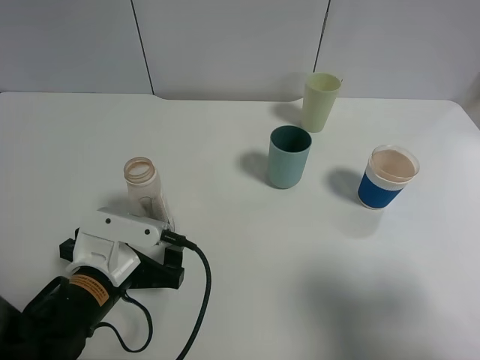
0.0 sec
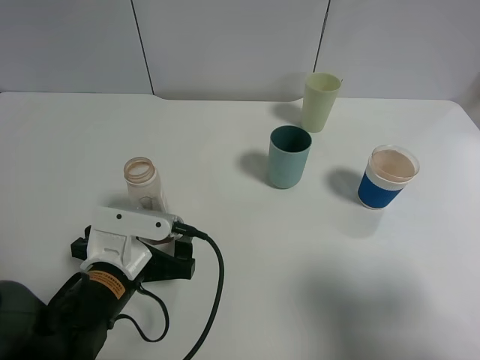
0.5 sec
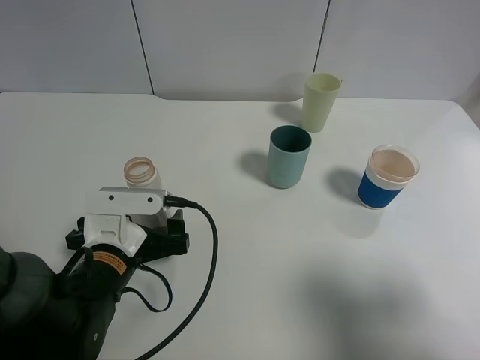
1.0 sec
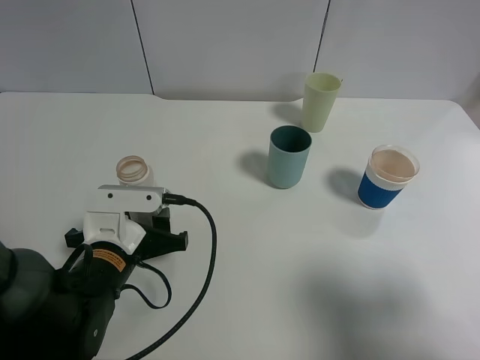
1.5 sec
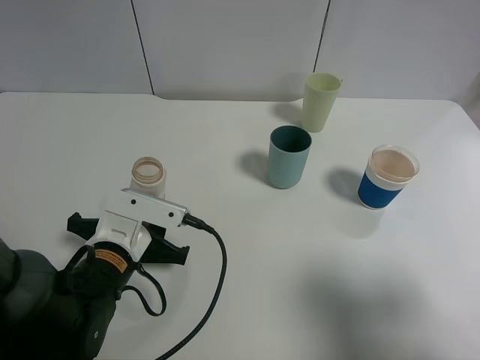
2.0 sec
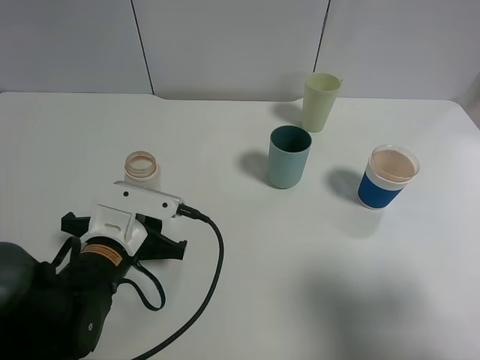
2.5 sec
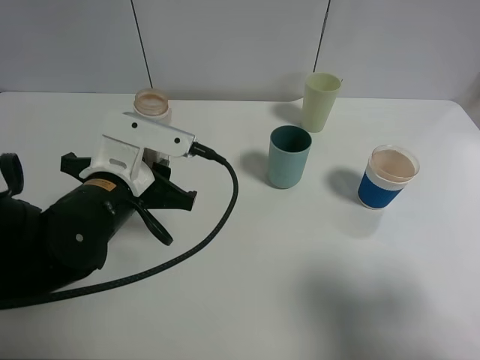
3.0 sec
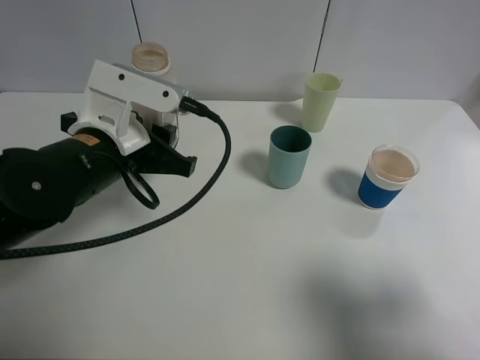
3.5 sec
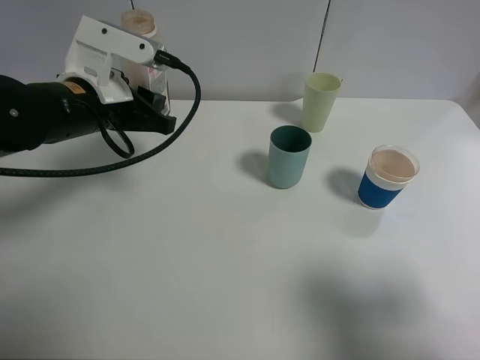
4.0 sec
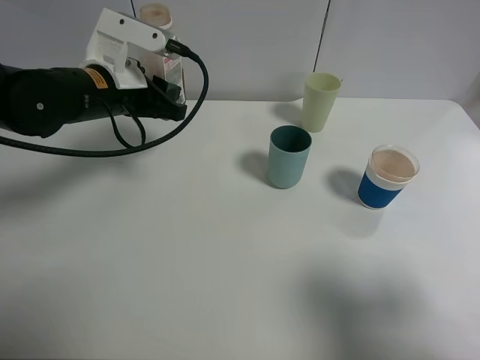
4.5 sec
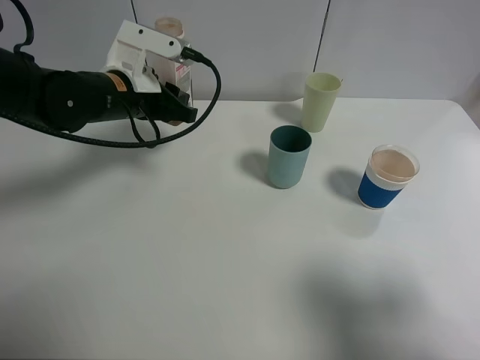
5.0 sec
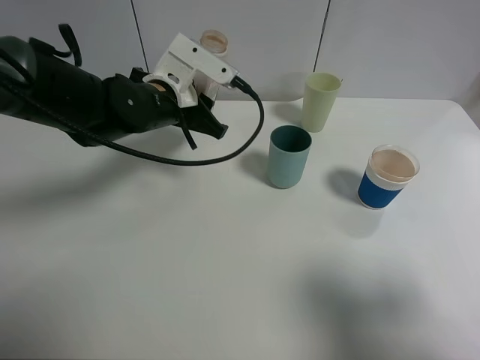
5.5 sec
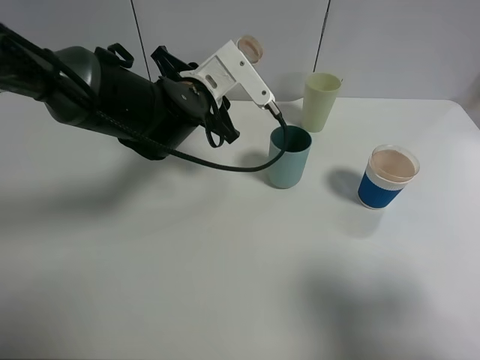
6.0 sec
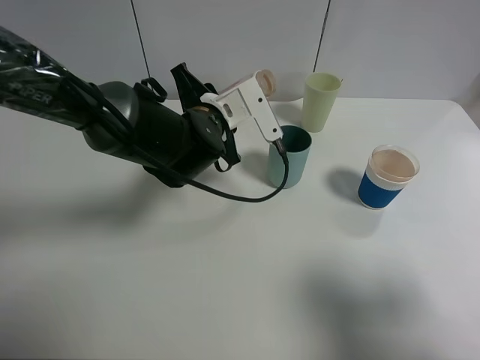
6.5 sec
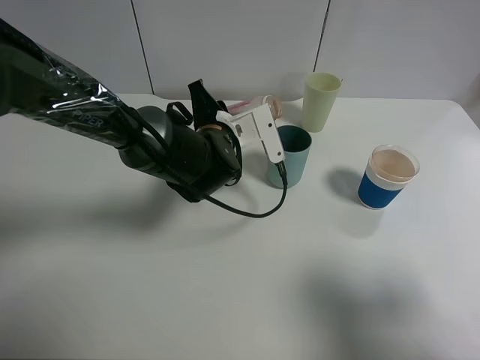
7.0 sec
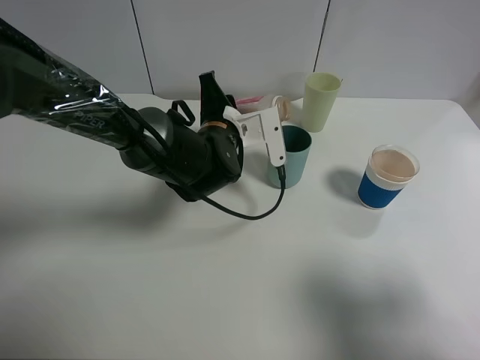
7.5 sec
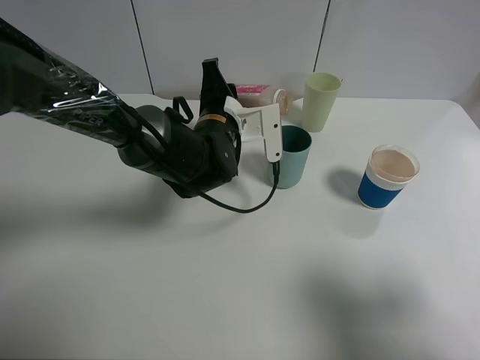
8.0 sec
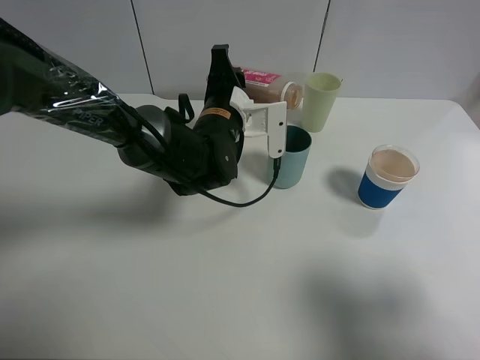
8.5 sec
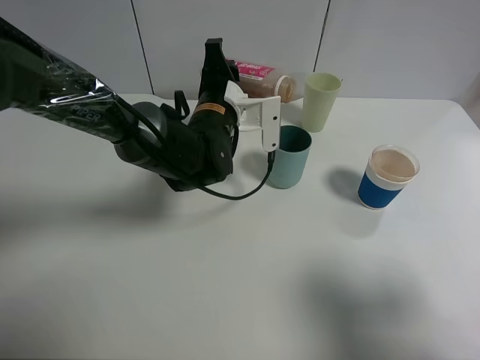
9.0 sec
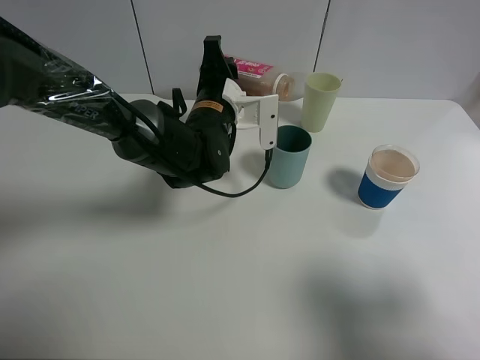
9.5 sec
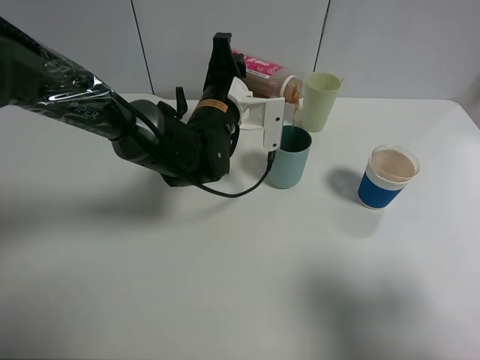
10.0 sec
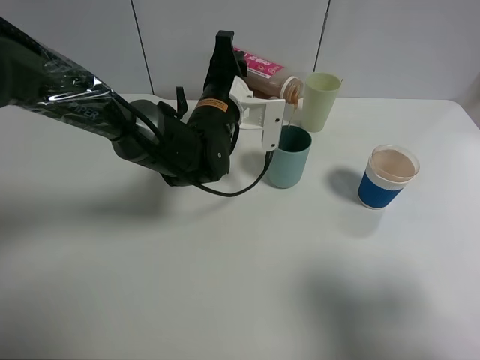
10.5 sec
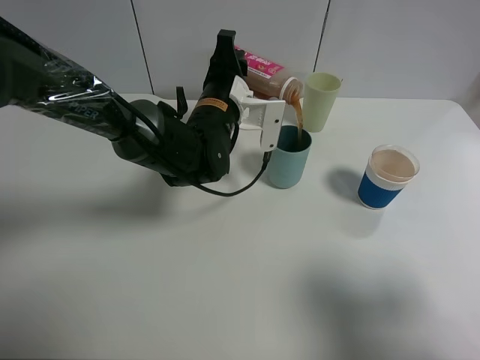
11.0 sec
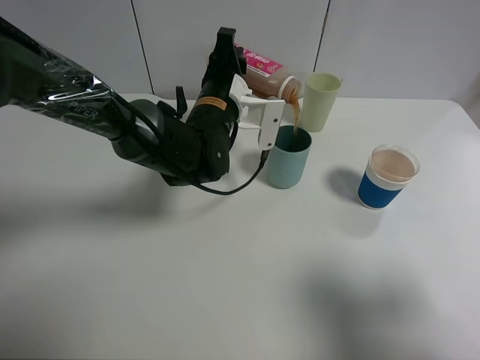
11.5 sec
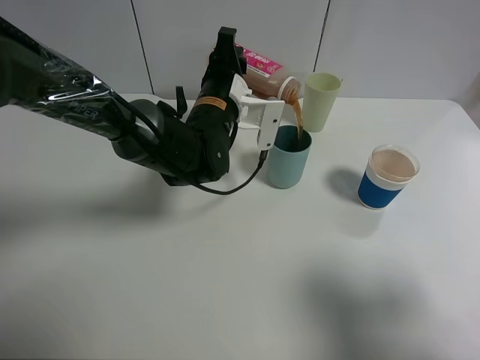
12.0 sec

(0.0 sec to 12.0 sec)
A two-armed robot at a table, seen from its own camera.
Task of the whole recording: use a clamp to hold the bottle of the drink, pour the beverage into a random cup, then clamp the cup containing the drink and pour the drink into another random cup.
Step, 0.0 sec - 2.0 sec: Pick up the drink bottle with left gripper.
0.0 sec - 2.0 sec: The left gripper closes up.
2.0 sec - 4.0 sec: The left gripper is displaced upward and forward by approximately 20 cm.
4.0 sec - 6.0 sec: The left gripper moves to the right, approximately 10 cm.
6.0 sec - 8.0 sec: The left gripper shifts by some 5 cm.
8.0 sec - 10.0 sec: The grippers make only small movements.
10.0 sec - 12.0 sec: The grippers make only small movements.

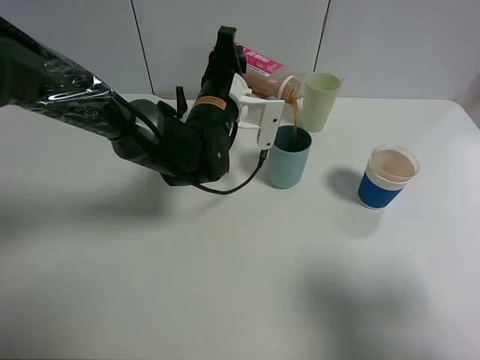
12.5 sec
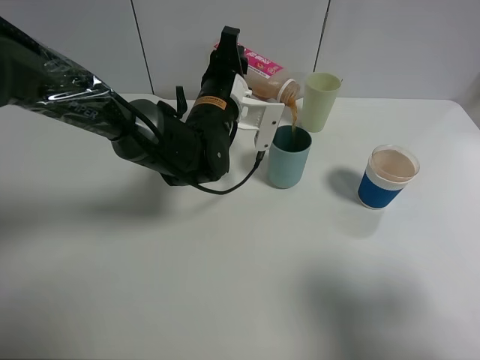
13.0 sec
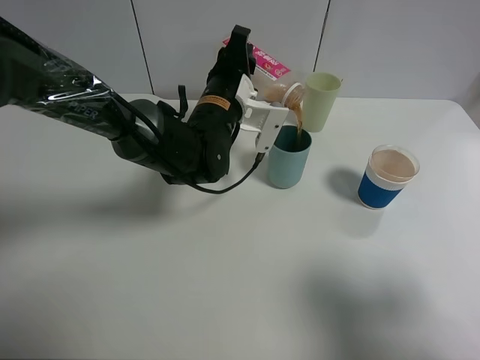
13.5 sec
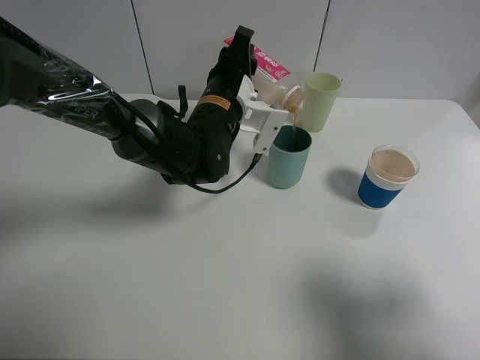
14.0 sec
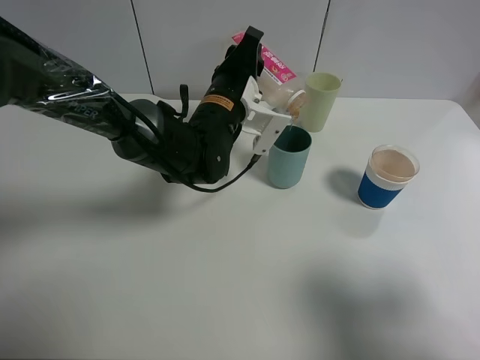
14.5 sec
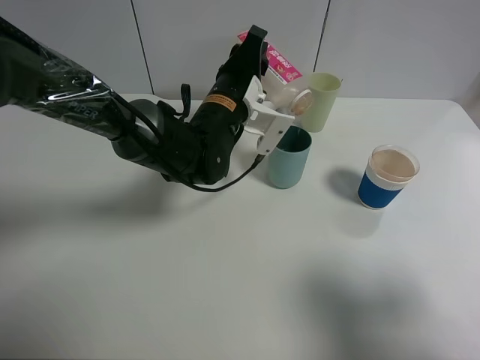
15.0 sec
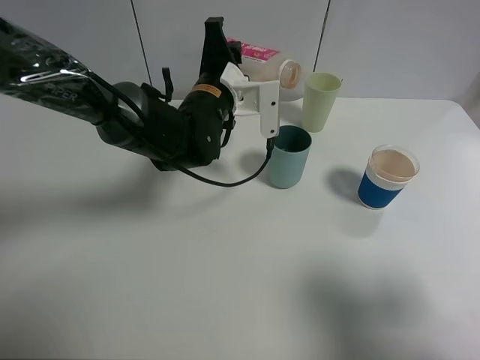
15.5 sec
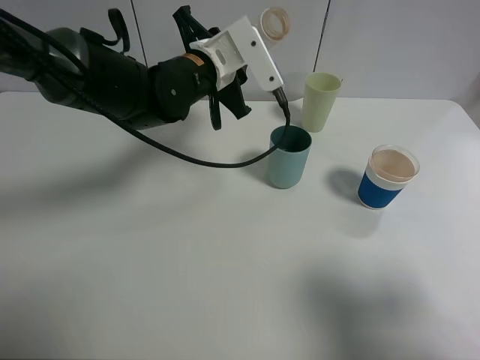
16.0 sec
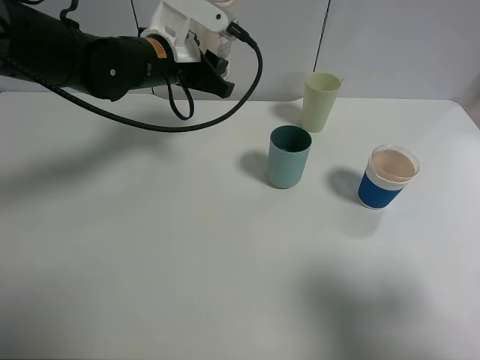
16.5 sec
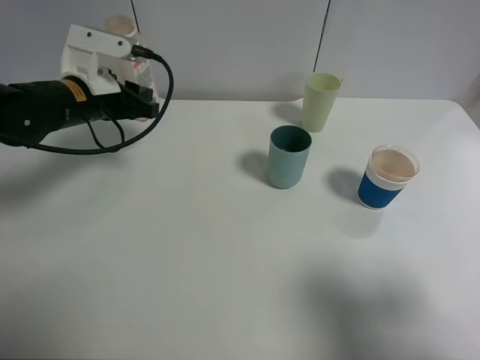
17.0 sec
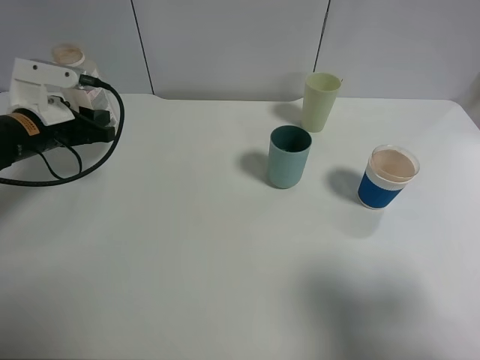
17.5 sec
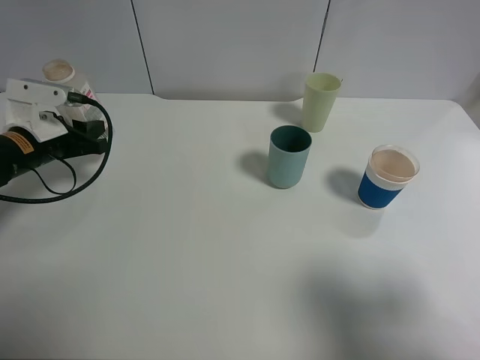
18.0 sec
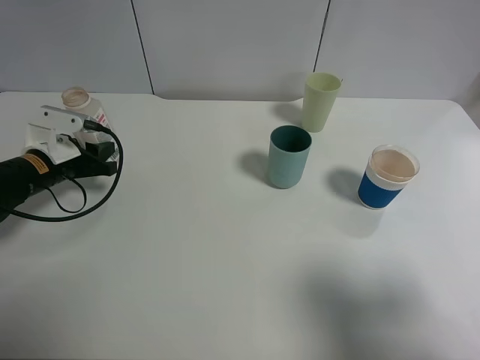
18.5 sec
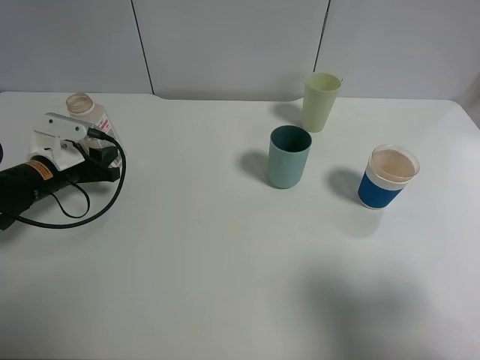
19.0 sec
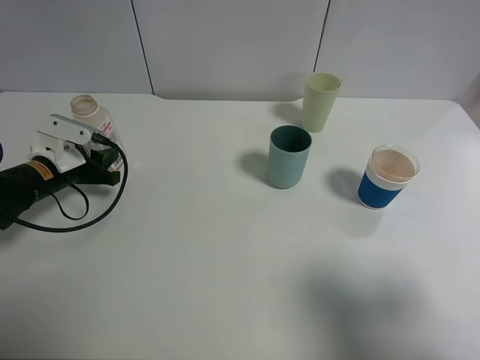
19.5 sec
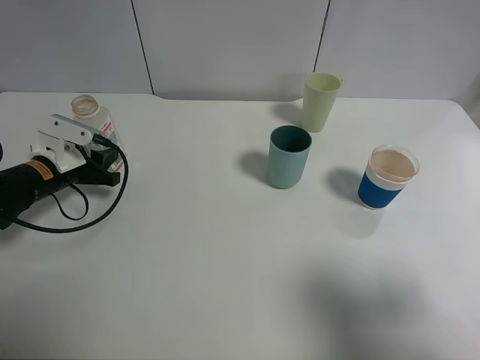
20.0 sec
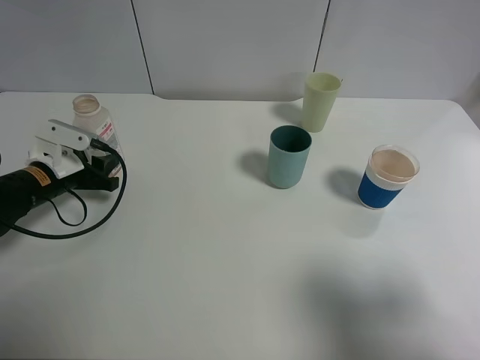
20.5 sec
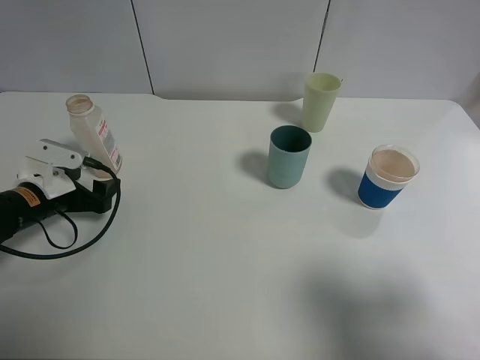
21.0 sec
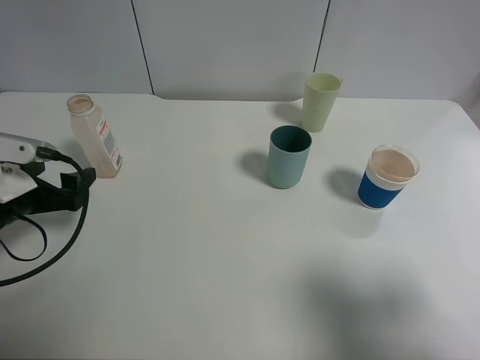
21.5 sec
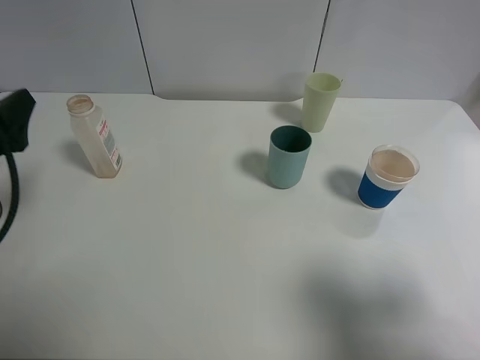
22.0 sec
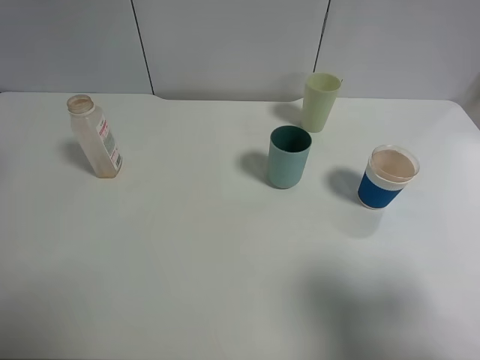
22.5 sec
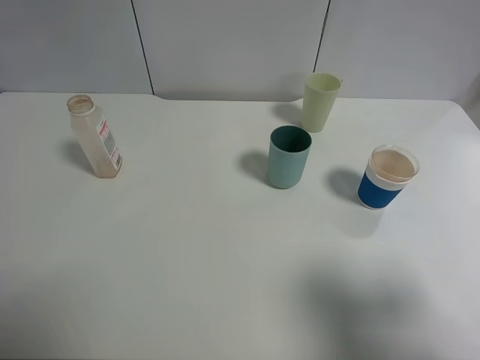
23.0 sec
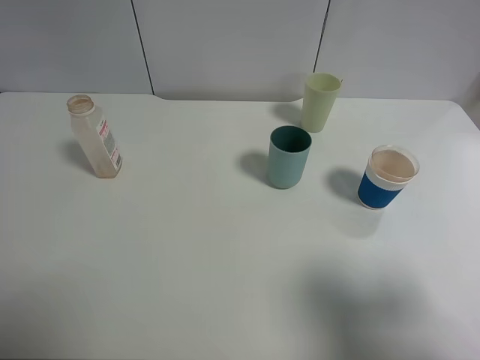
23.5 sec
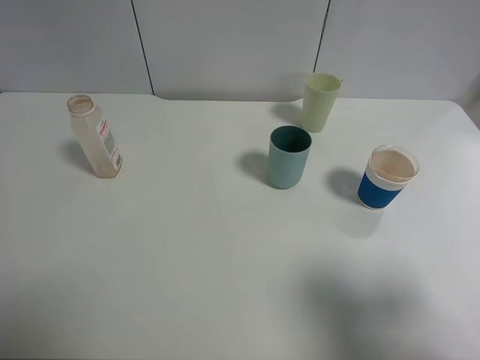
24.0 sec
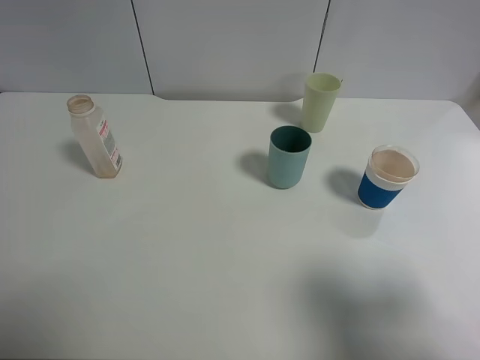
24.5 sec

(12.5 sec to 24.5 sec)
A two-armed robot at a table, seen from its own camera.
Task of the whole recording: use a clamp to hold the bottle of the drink, pour the beverage into a random cup, then clamp the cup containing the drink and pour the drink into another random cup.
Step, 12.5 sec - 15.0 sec: Pour the drink into the blue plastic cup with left gripper.
Step, 15.5 sec - 20.5 sec: Place the drink bottle on the table with left gripper.
12.5 sec - 14.5 sec: The grippers move only a little.
14.5 sec - 16.5 sec: The left gripper travels to the left and upward by about 10 cm.
16.5 sec - 18.5 sec: The left gripper moves to the left and downward, roughly 25 cm.
18.5 sec - 20.5 sec: The grippers make only small movements.
20.5 sec - 22.5 sec: The left gripper is displaced upward and backward by approximately 25 cm, and opens its fingers.

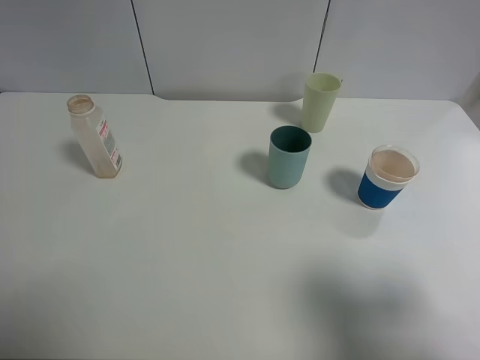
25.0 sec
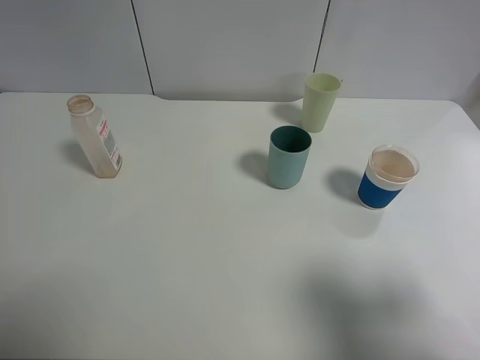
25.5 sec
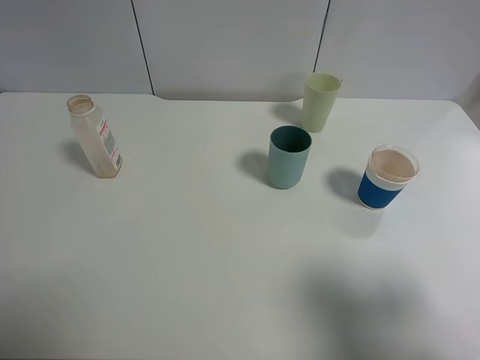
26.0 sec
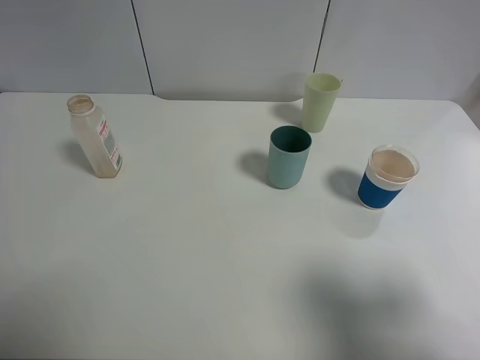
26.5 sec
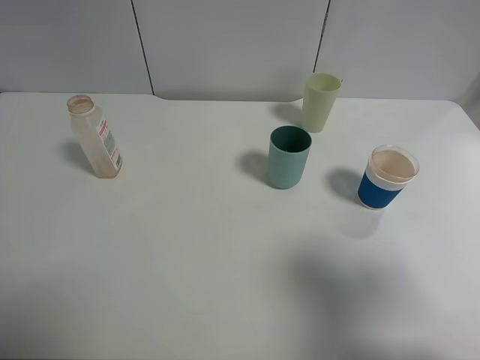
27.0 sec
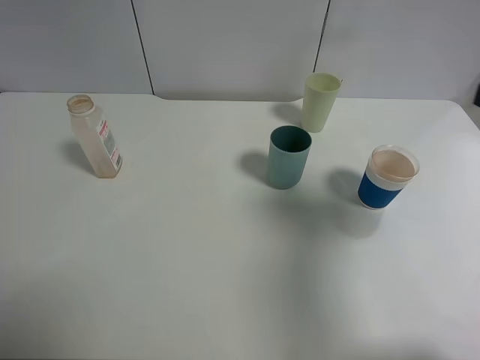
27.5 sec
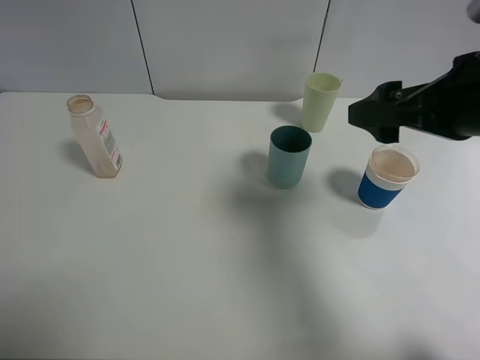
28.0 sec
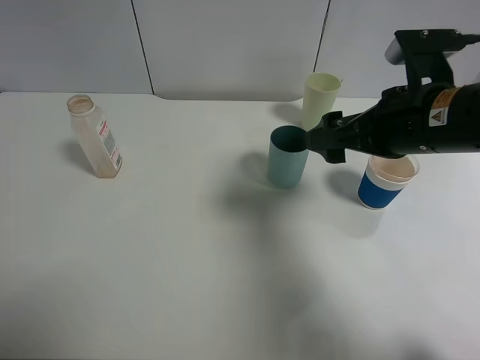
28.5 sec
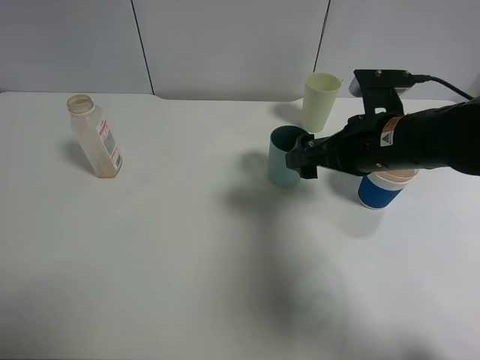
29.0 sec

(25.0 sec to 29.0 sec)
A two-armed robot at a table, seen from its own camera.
Task of the whole recording: use a clamp to hold the bottle of the drink, pour the beverage into a random cup, then clamp the cup containing the drink and pour the drink into another random cup.
25.0 sec - 27.0 sec: There are only small adjustments of the grippers.
27.0 sec - 29.0 sec: The right gripper shifts roughly 30 cm forward, to the left and downward.
